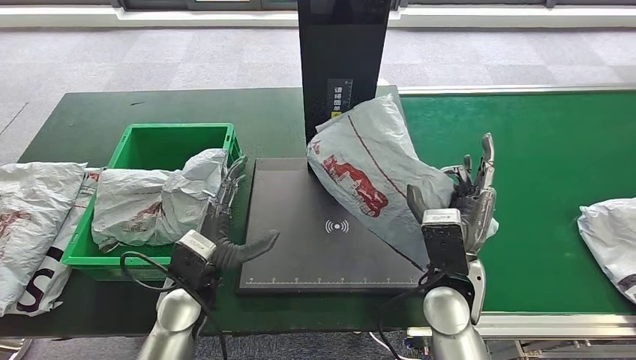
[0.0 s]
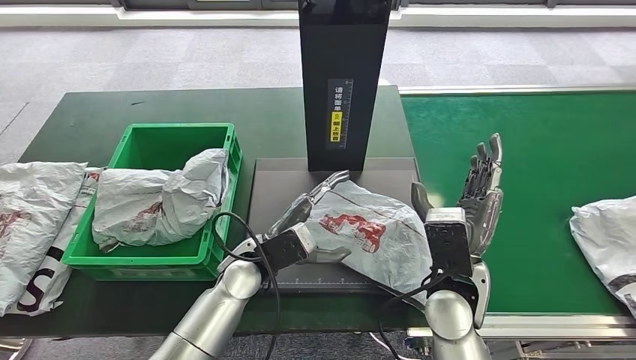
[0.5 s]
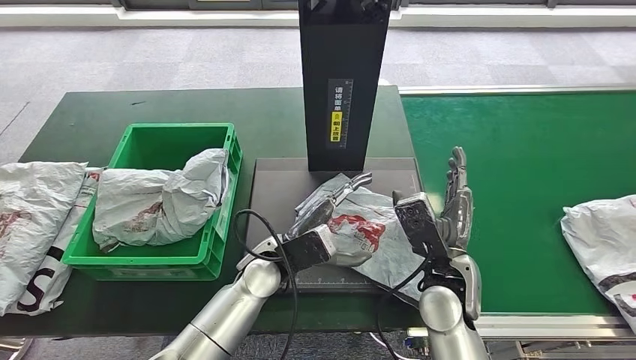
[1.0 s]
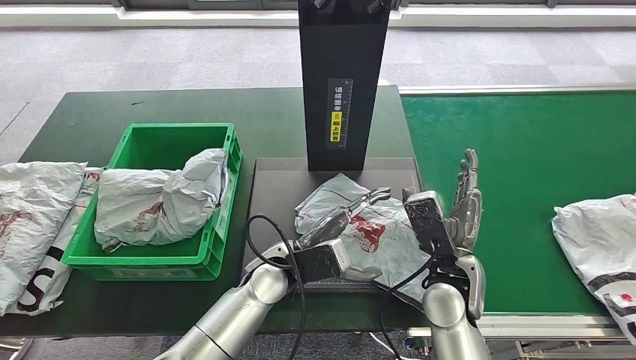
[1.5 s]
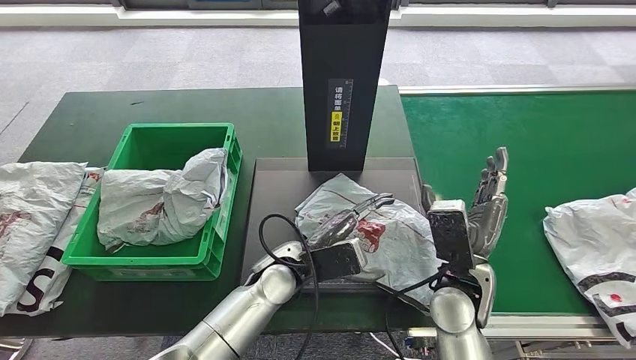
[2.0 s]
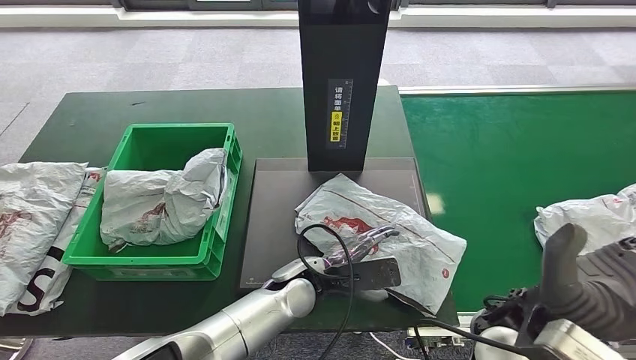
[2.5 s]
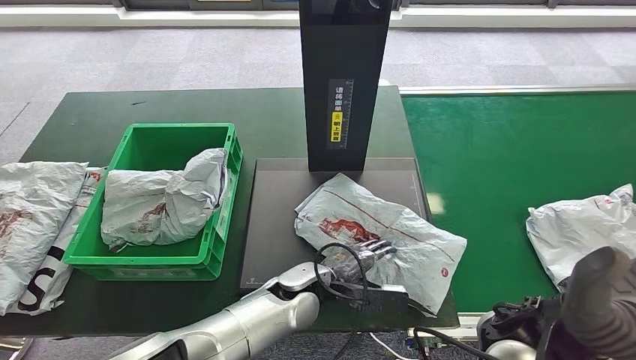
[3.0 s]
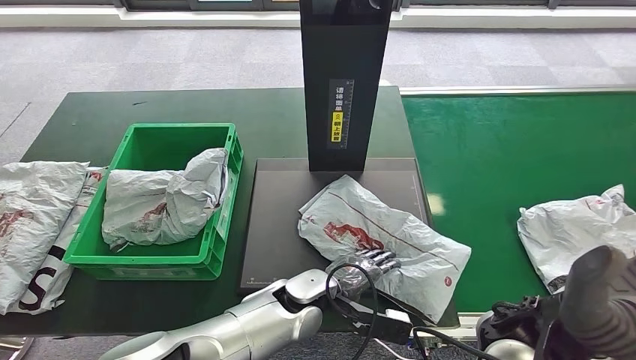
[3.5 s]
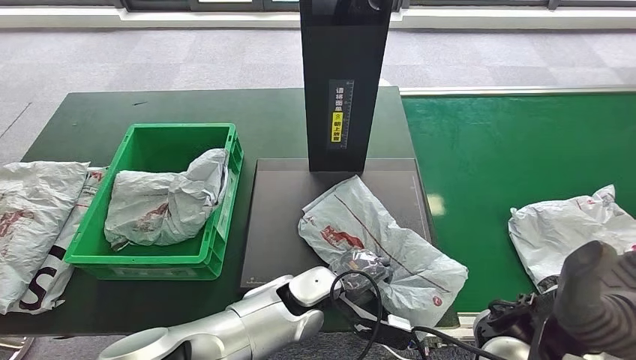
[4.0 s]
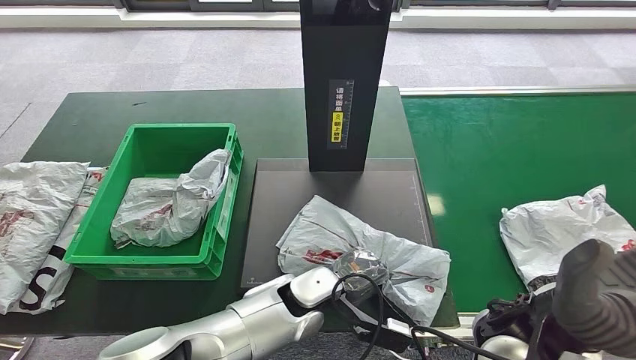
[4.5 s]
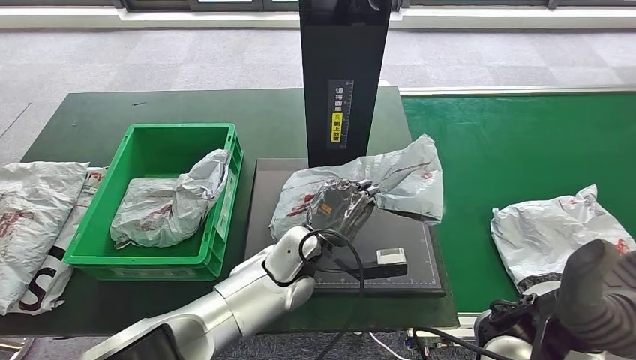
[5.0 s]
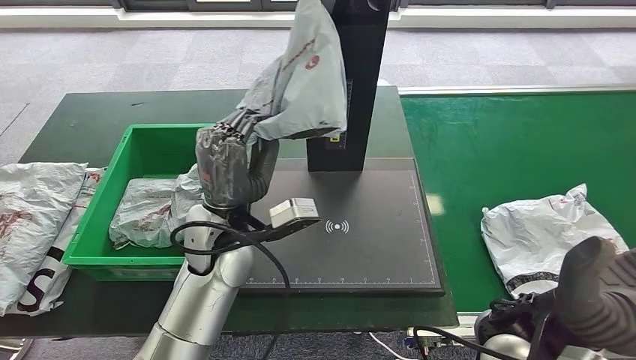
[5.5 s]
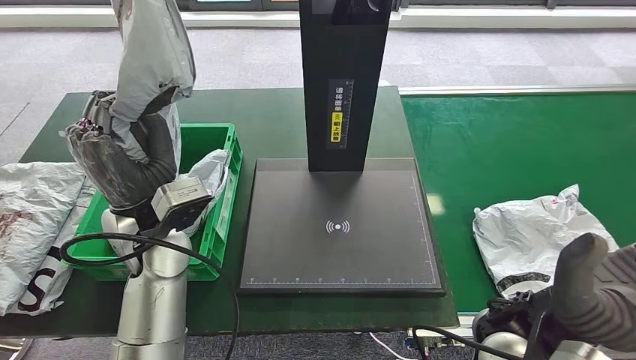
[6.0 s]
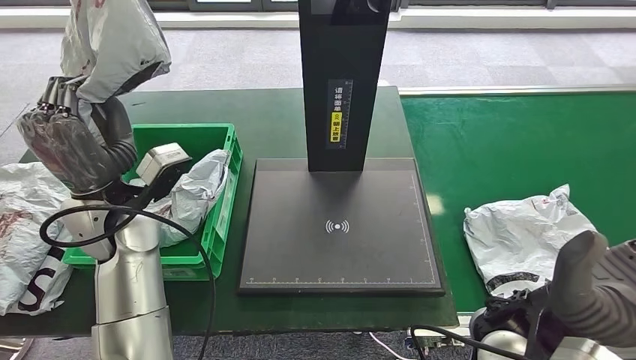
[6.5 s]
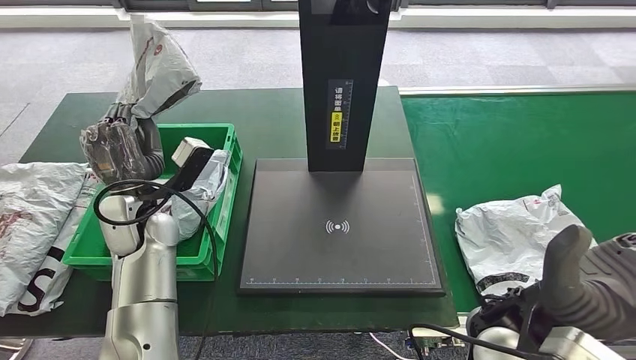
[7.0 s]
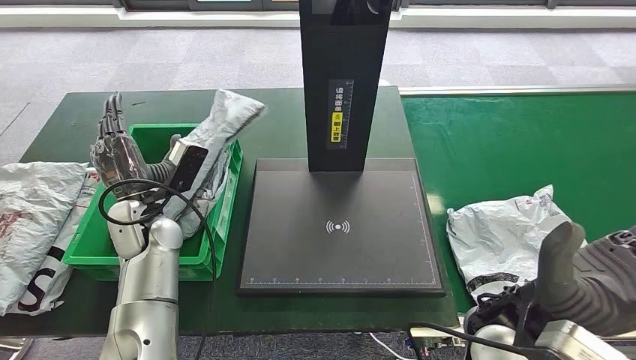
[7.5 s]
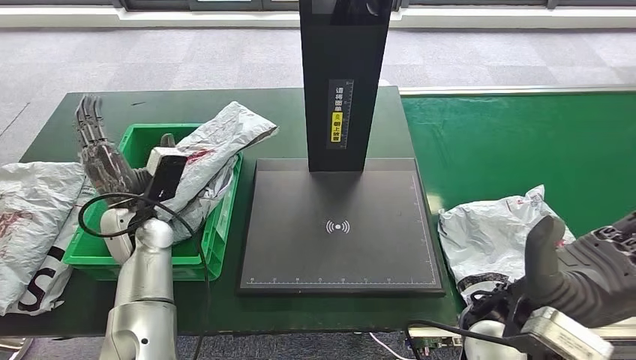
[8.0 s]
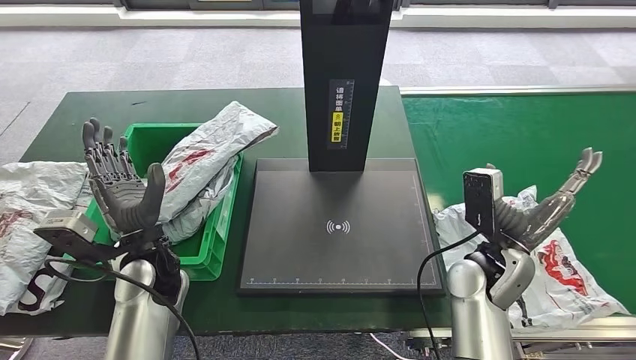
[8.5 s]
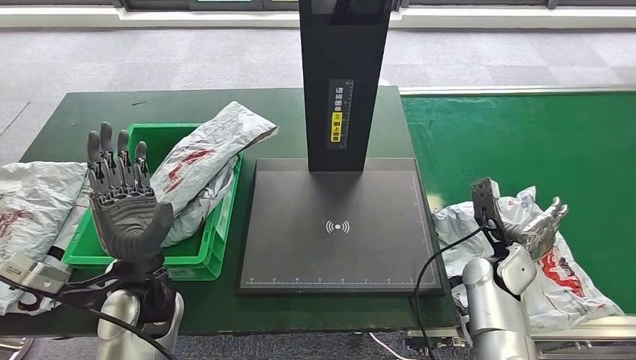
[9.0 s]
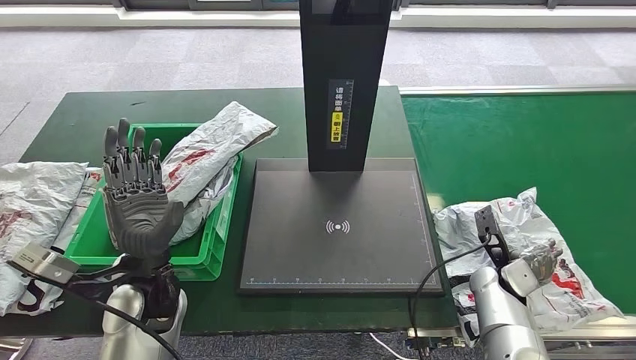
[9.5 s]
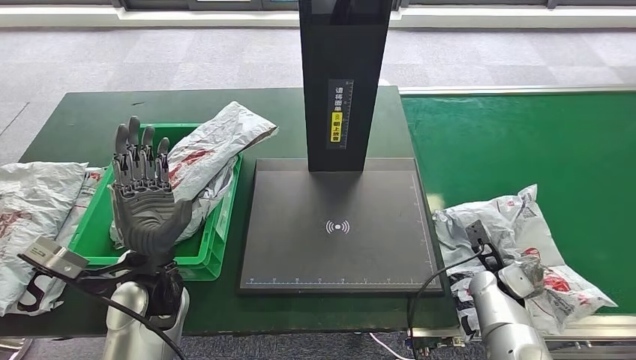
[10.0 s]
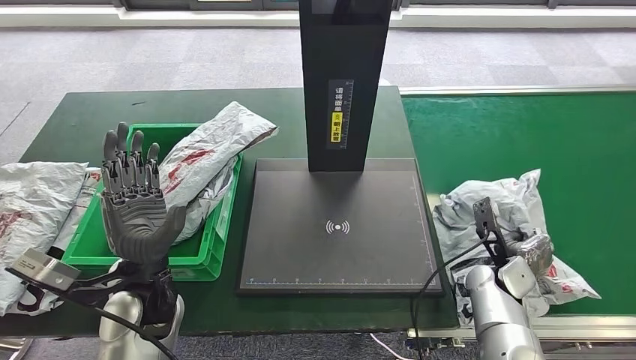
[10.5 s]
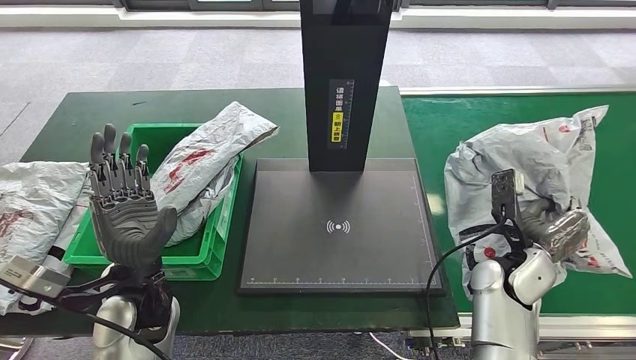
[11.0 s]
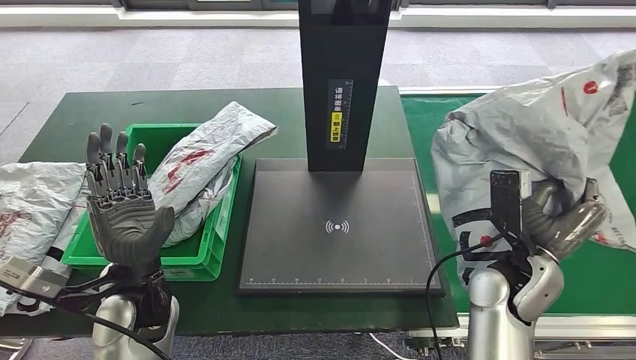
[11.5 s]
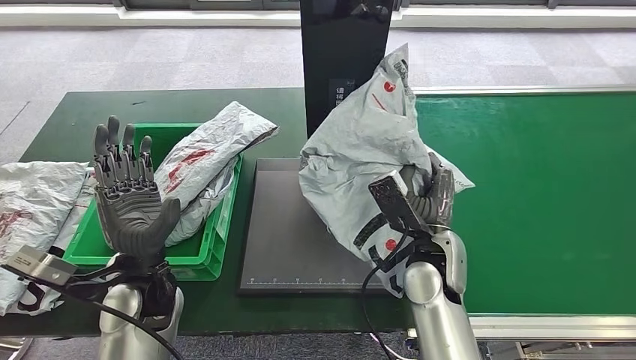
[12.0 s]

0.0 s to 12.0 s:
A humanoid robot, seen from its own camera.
Step, 0.0 to 6.0 s: Pick up the parcel from the inbound machine.
Step, 6.5 to 9.5 s: Place the parcel into the delivery box.
Step, 10.0 to 11.5 s: Pick up the parcel from the conveyor belt.
8.0 to 10.0 s: The right hand is displaced downward, to the right and forward by some 25 cm; the left hand heads backward and to the right, covering some 10 cm.

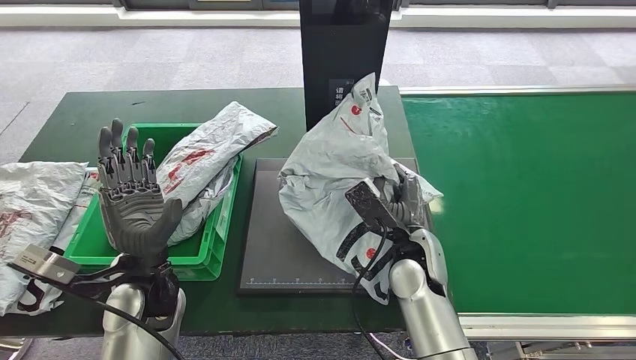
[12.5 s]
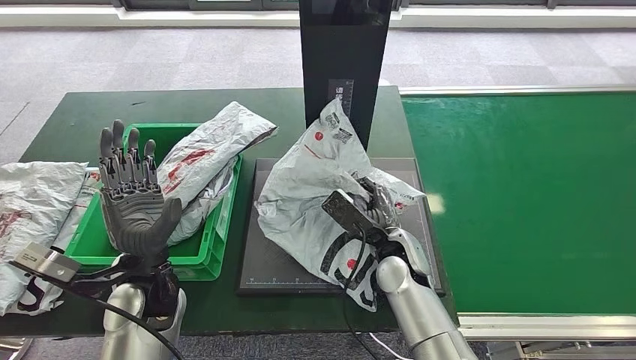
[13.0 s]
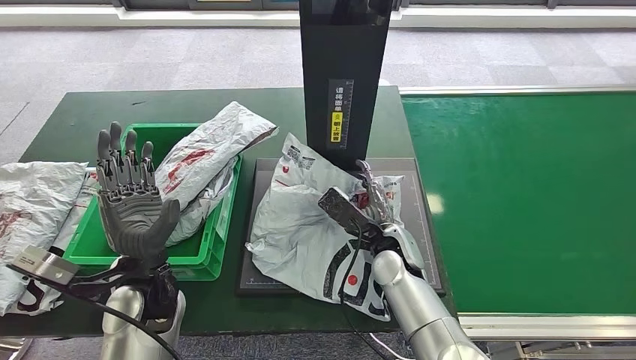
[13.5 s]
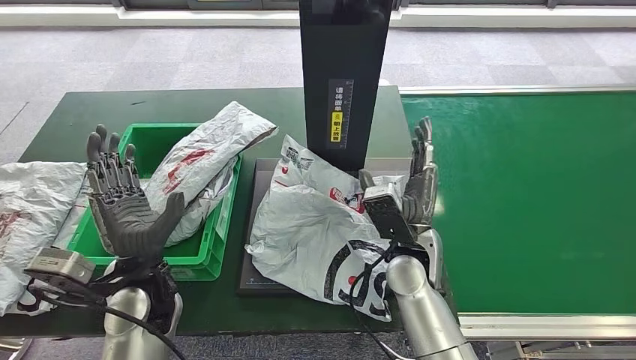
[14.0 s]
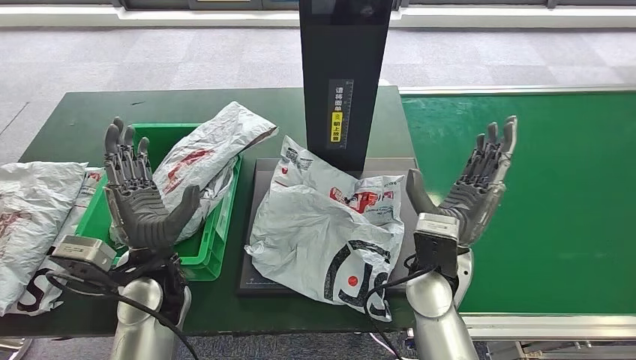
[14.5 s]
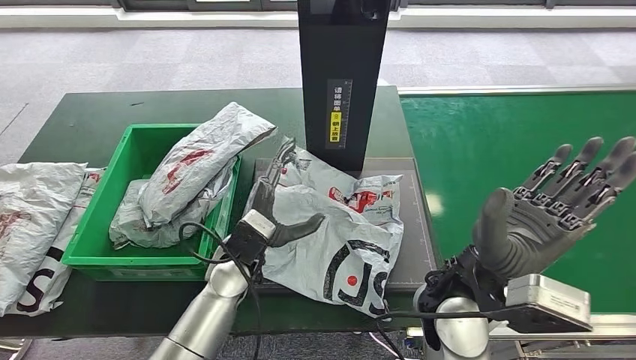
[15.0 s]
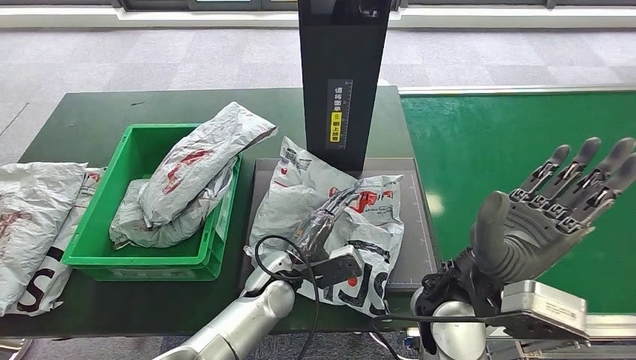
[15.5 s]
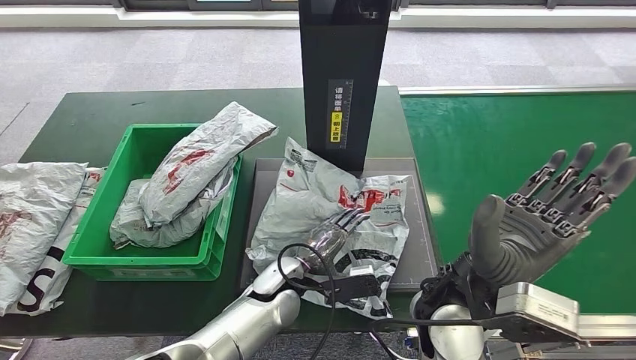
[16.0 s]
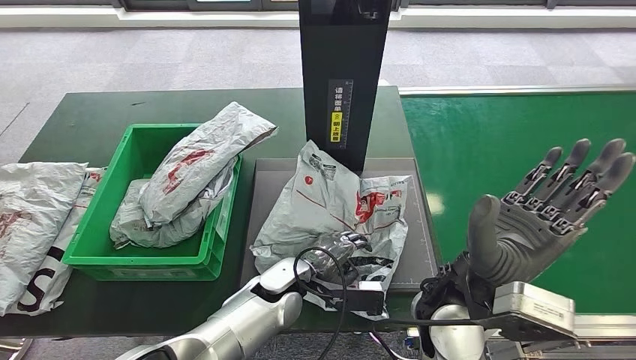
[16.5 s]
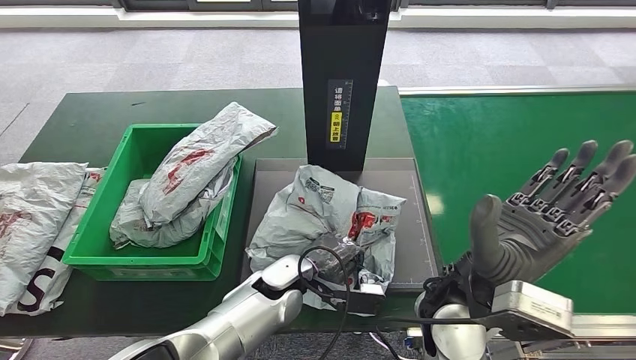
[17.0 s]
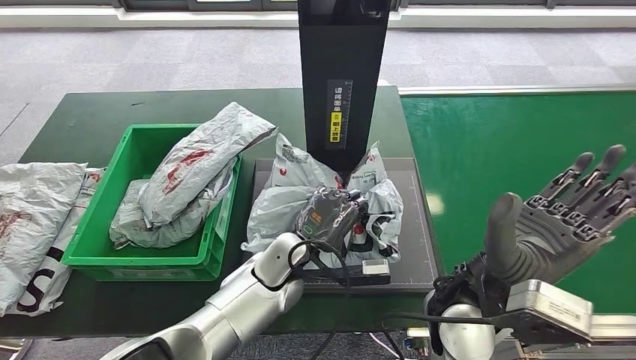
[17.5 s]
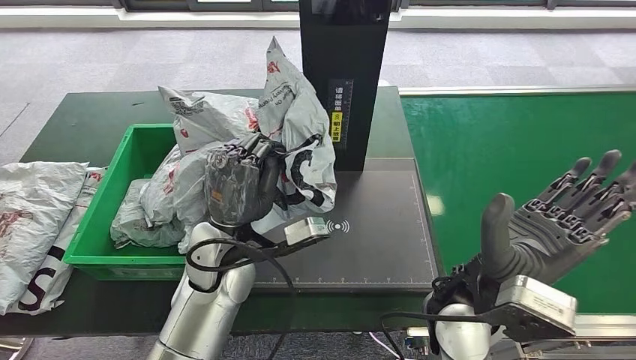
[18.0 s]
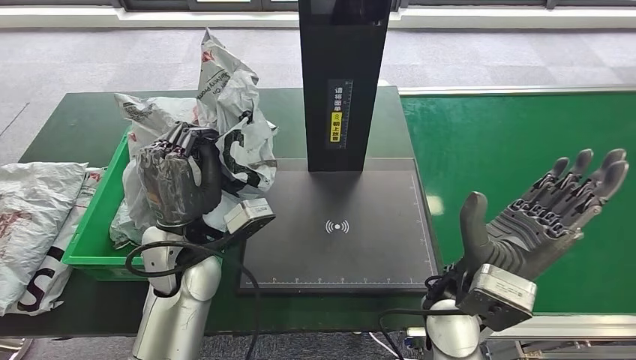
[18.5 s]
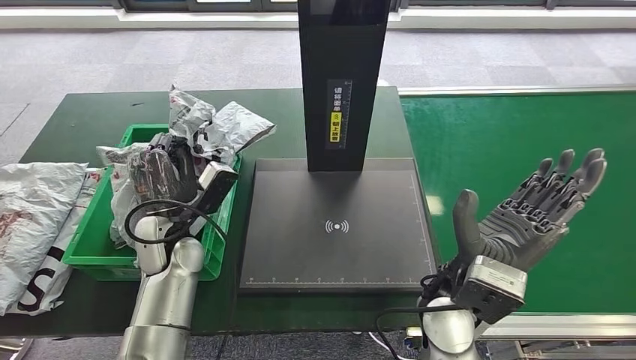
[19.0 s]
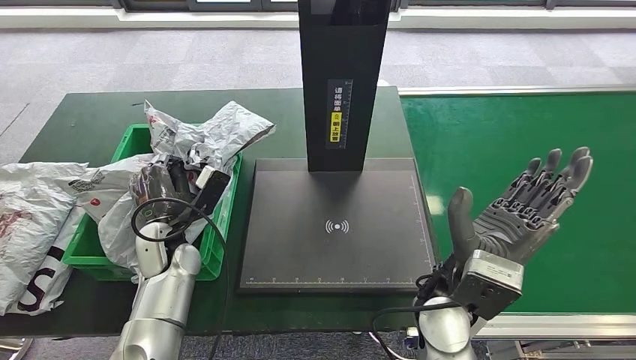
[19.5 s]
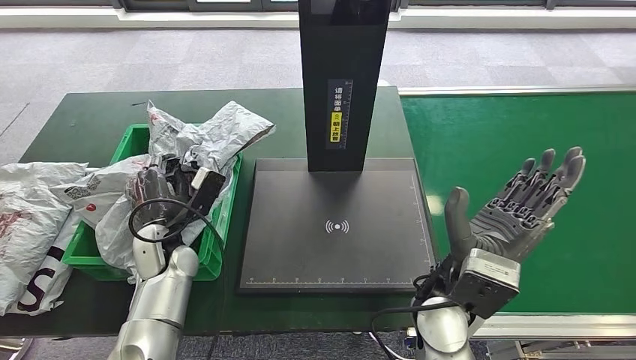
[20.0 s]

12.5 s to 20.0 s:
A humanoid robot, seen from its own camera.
Step, 12.5 to 14.5 s: Place the parcel onto the inbound machine.
Step, 15.0 to 18.0 s: Pick up the parcel from the inbound machine.
Step, 18.5 to 20.0 s: Place the parcel into the delivery box.
12.5 to 14.5 s: The right hand is displaced upward by about 5 cm.
